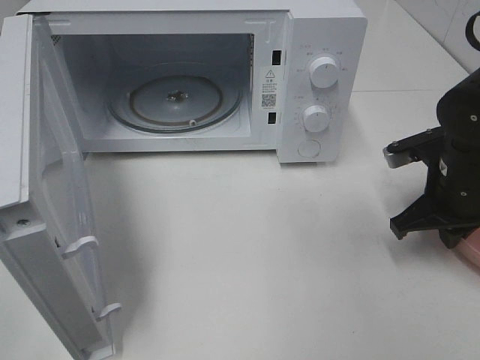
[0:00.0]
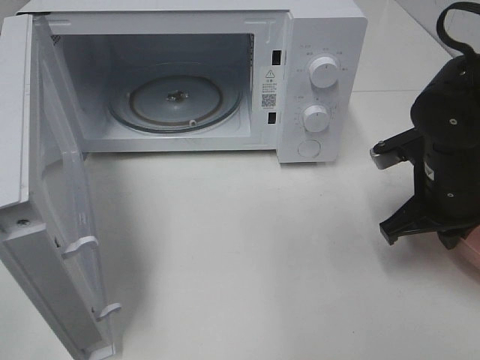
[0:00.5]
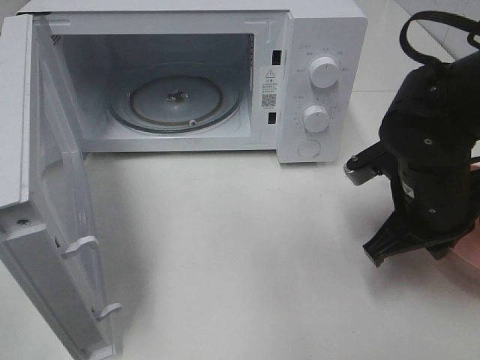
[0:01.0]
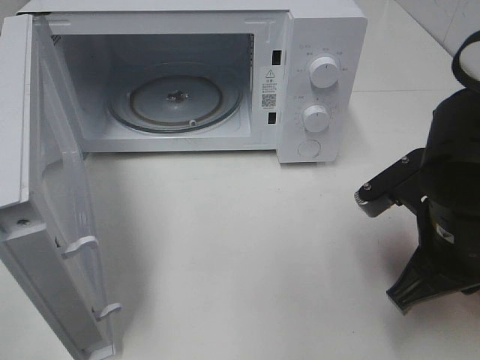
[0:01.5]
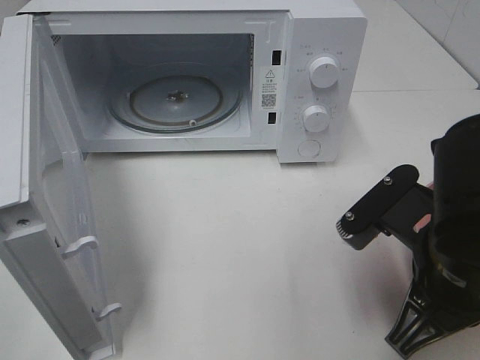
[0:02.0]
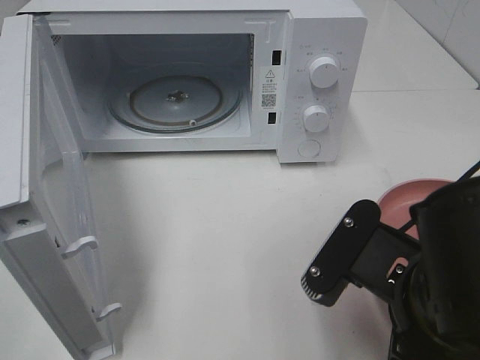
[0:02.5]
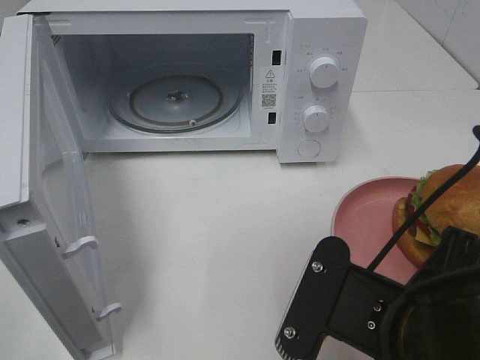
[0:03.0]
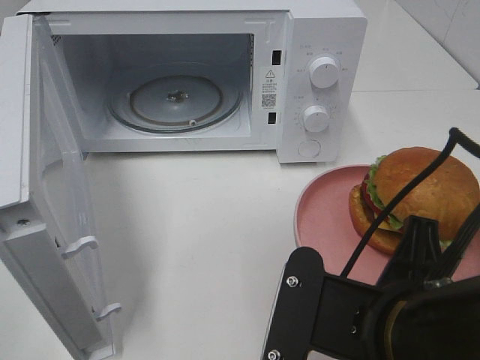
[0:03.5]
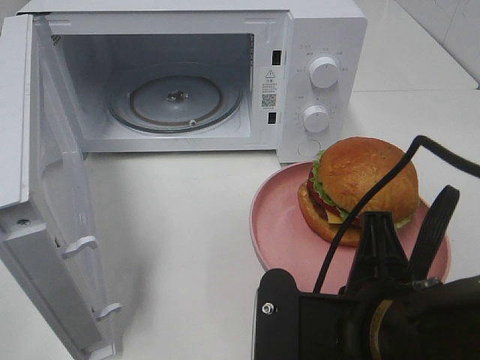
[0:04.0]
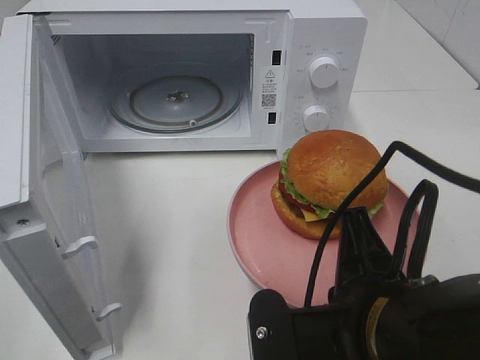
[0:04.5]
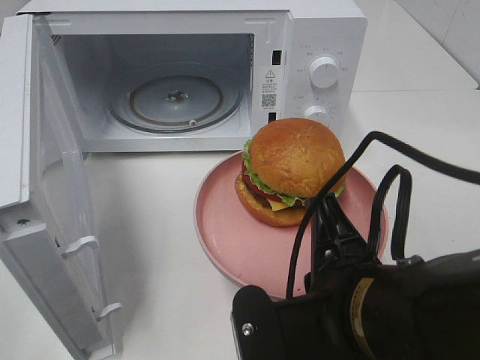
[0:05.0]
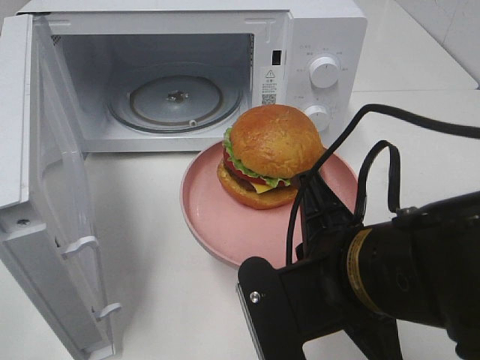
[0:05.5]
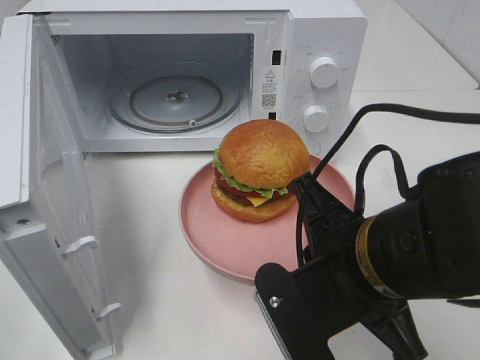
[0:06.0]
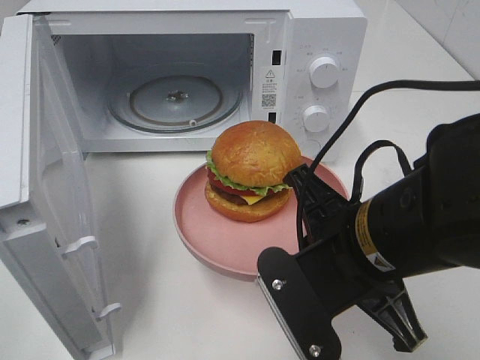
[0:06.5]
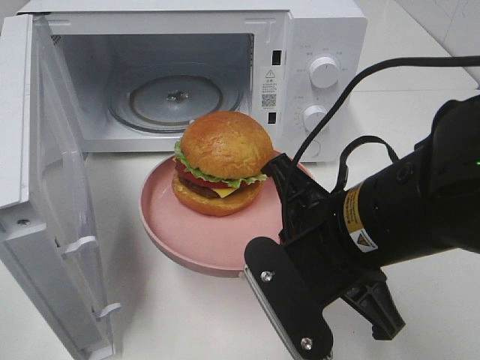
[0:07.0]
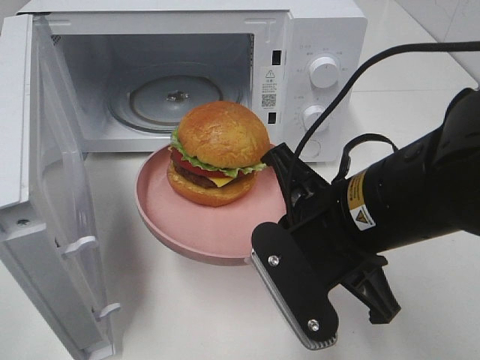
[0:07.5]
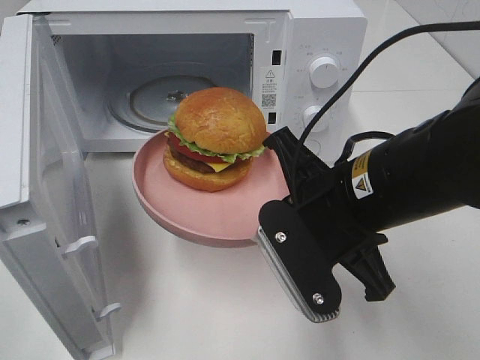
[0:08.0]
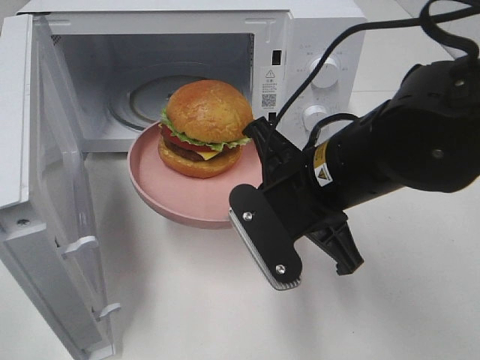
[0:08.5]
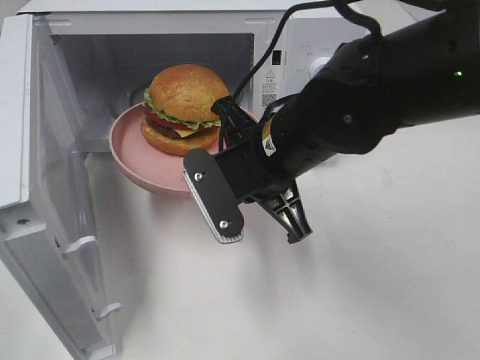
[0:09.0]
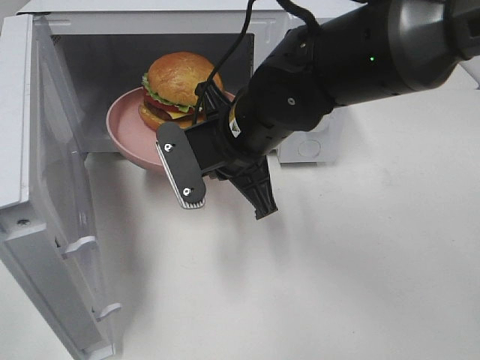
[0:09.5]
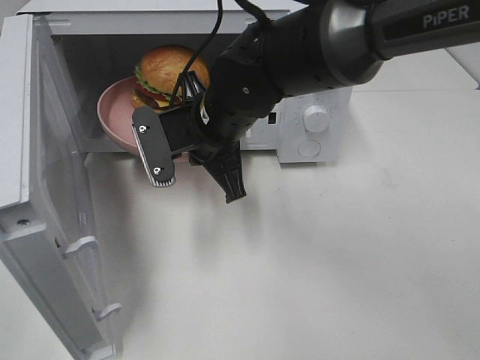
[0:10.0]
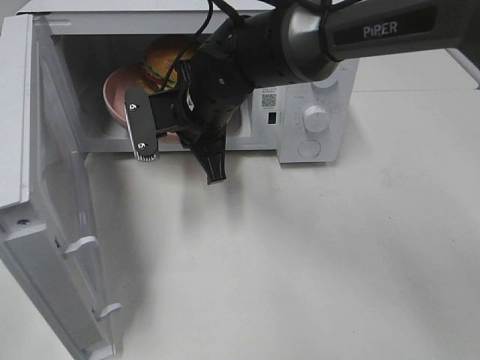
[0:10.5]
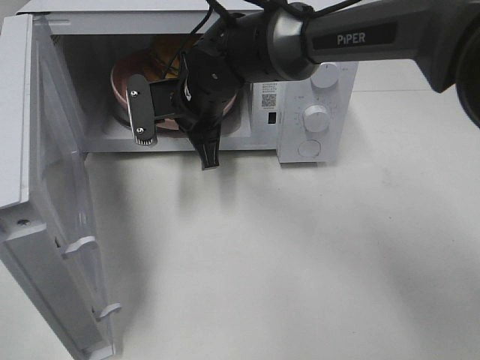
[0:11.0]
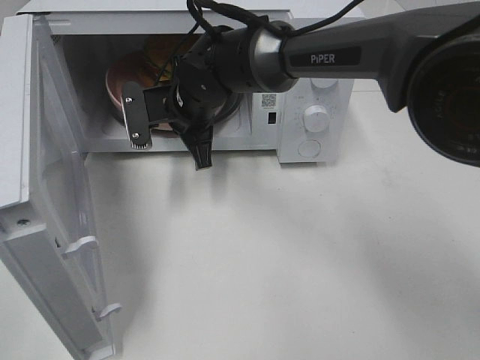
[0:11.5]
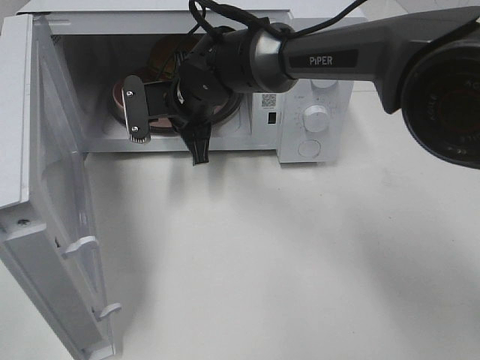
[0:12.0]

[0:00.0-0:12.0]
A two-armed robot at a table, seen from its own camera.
Task of the whole recording: Heat the burger.
0:00.0 to 0:02.0: The right gripper goes some 15 cm backward and to the left.
0:02.0 to 0:04.0: The right gripper goes roughly 10 cm to the left and backward.
0:04.0 to 0:06.0: The right gripper travels forward by roughly 5 cm.
0:06.0 to 0:08.0: The right gripper moves forward, approximately 5 cm.
0:08.0 to 0:10.0: The right gripper heads forward and to the left, covering about 15 cm.
0:10.0 to 0:12.0: The right gripper travels forward by roughly 10 cm.

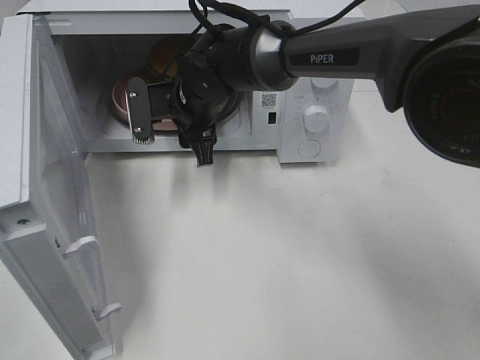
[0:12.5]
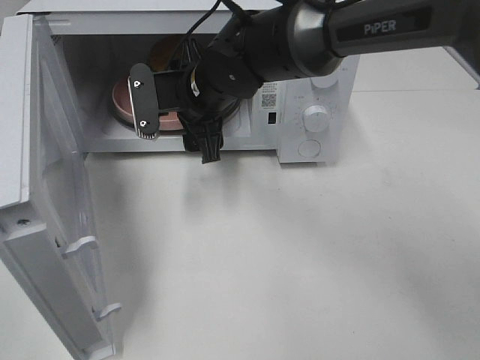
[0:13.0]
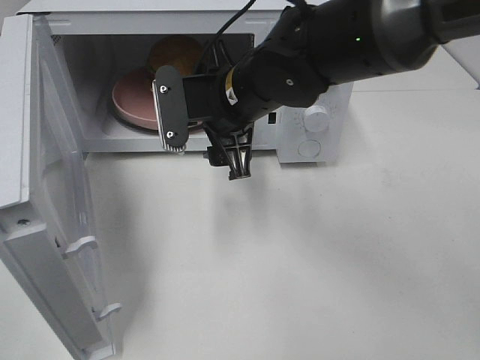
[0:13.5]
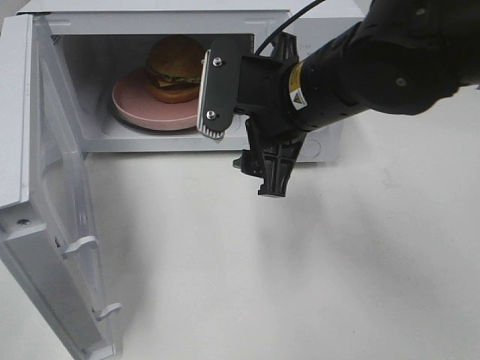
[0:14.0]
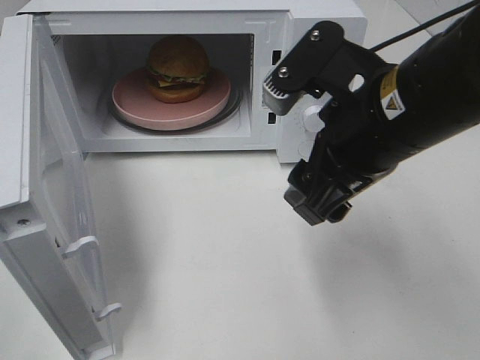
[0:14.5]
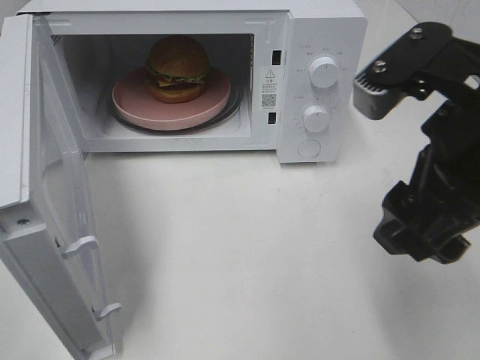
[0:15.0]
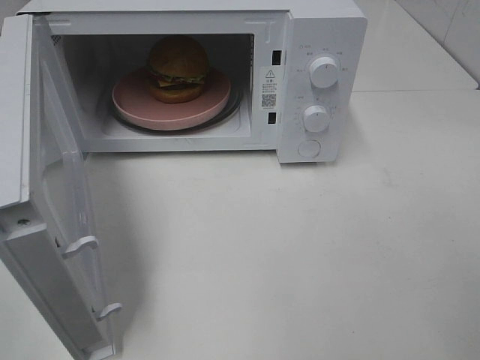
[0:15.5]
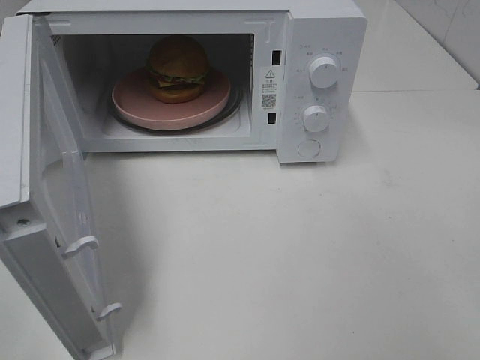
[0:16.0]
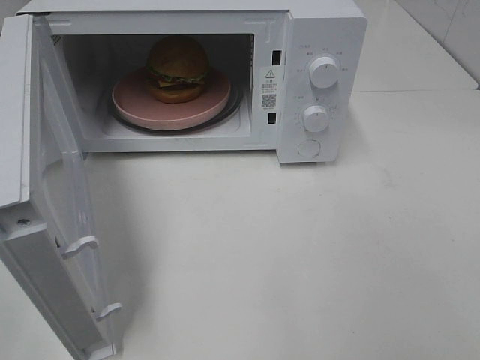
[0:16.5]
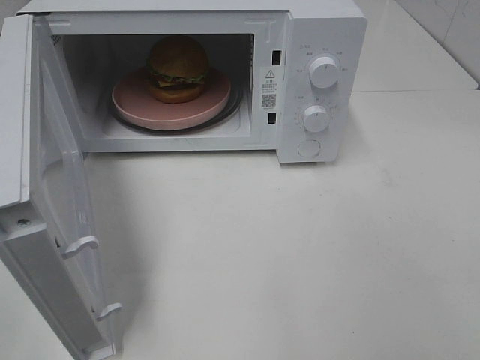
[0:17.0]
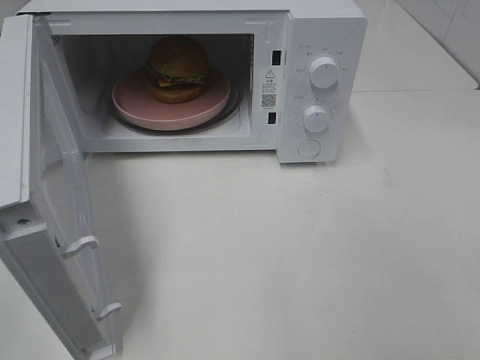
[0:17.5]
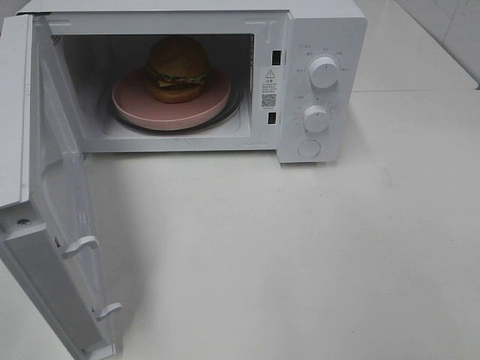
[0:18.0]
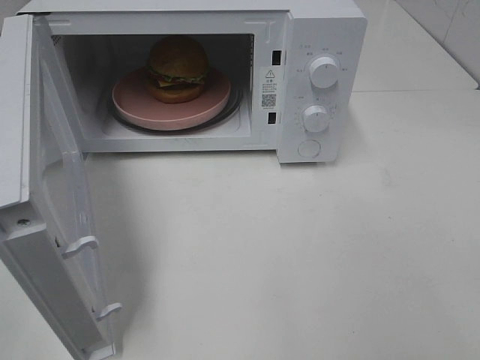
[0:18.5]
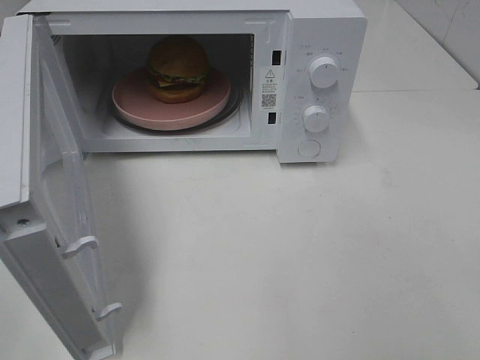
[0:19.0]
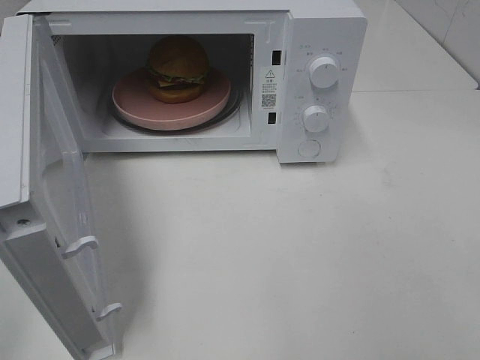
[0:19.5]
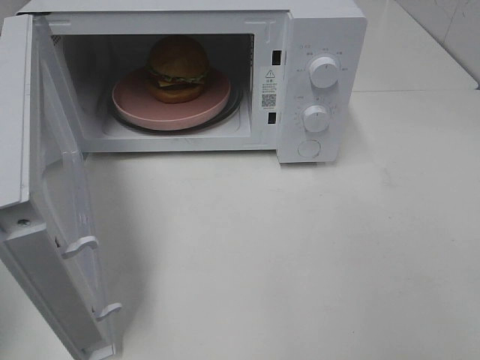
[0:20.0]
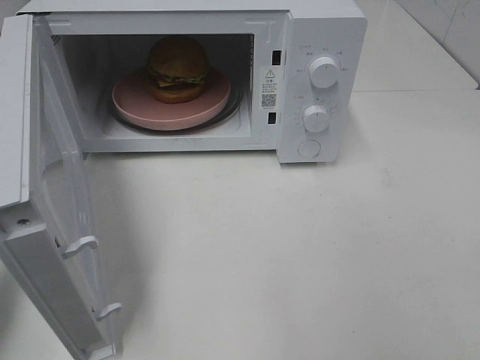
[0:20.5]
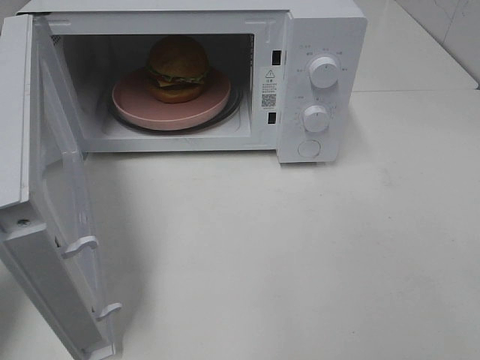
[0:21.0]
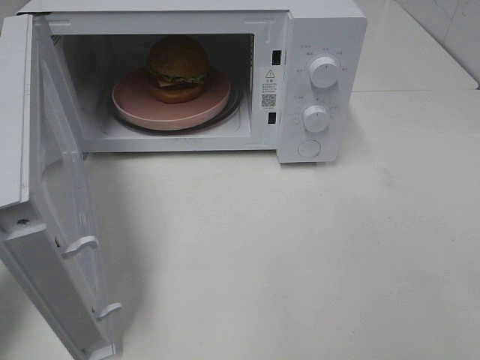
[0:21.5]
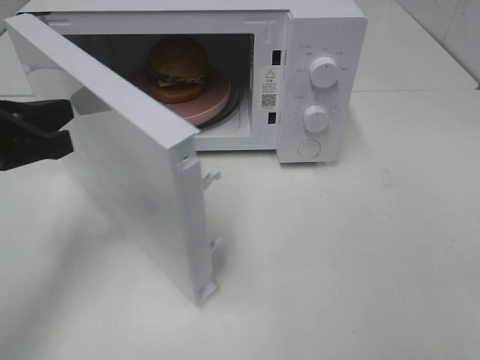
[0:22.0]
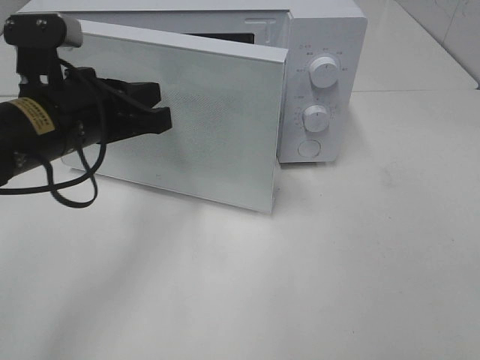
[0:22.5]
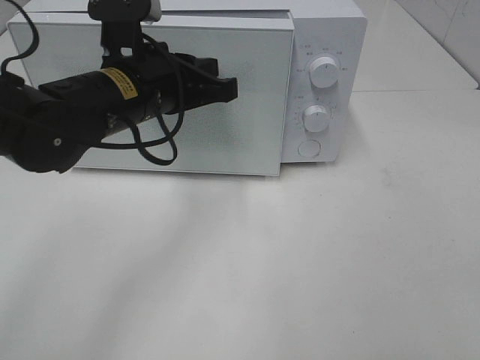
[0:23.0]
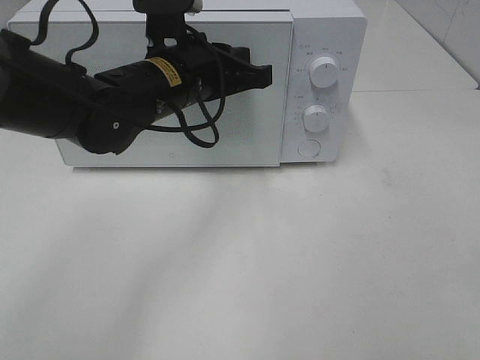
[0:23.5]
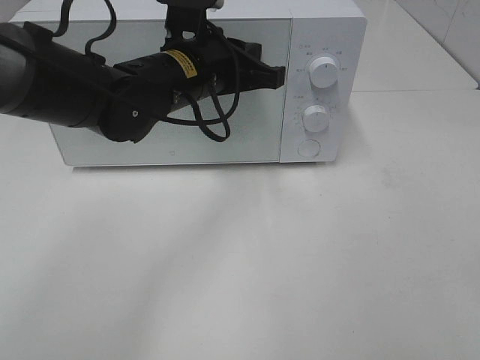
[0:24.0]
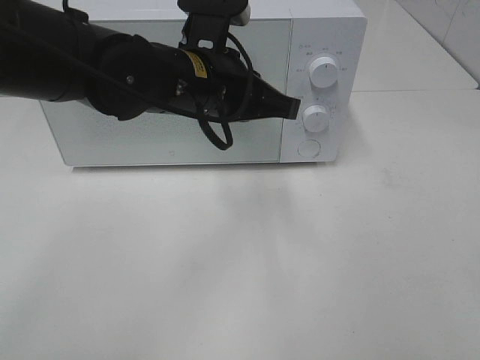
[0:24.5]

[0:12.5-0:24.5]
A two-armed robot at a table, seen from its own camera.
Task of the whole recording: Heat the burger.
Step, 0:12.5 to 0:24.0: Left hand: close the microwave door.
0:12.5 to 0:14.5: The right gripper goes some 30 cm backward, to the right and upward.
0:14.5 to 0:16.5: The right gripper is displaced backward and to the right by roughly 30 cm.
0:16.5 to 0:18.5: Neither gripper changes place.
0:18.5 to 0:20.5: The left gripper is displaced forward by roughly 15 cm, and closes.
0:20.5 to 0:22.5: The left gripper is displaced to the right and forward by roughly 20 cm.
0:22.5 to 0:24.5: The left gripper moves to the right, roughly 10 cm.

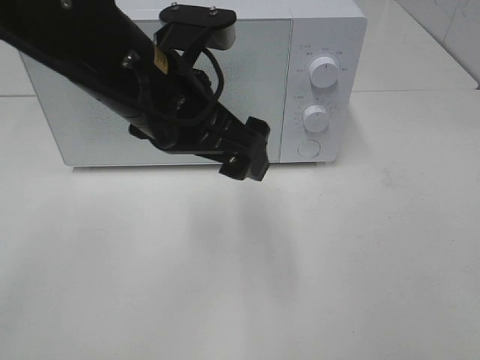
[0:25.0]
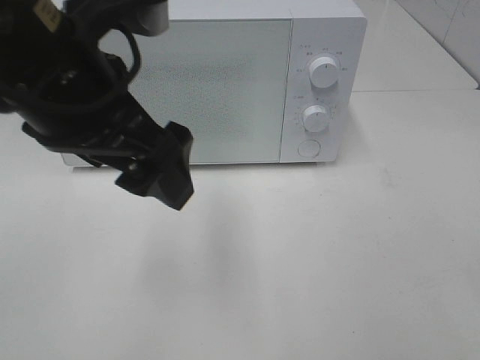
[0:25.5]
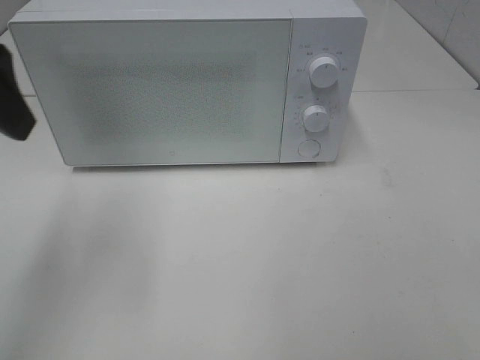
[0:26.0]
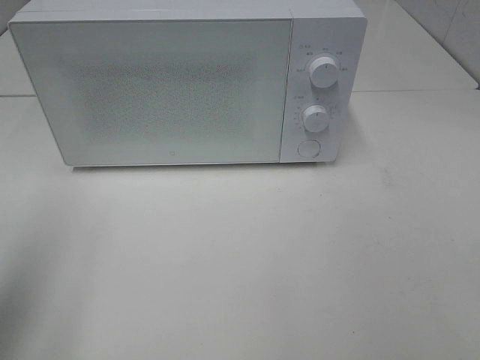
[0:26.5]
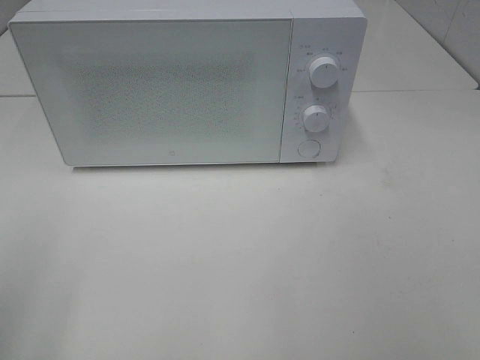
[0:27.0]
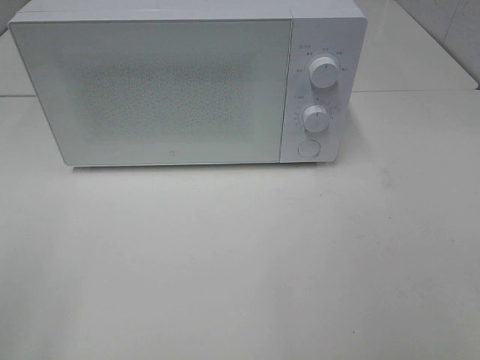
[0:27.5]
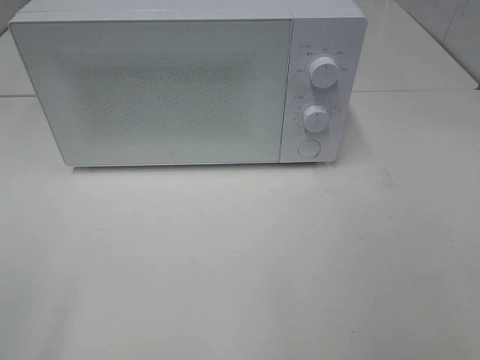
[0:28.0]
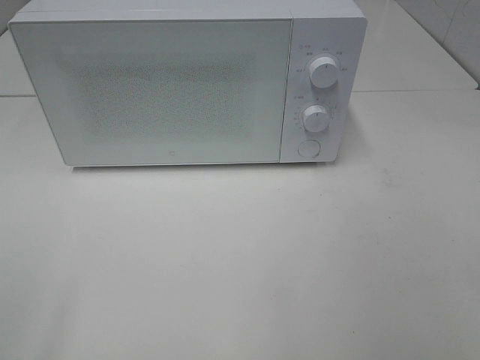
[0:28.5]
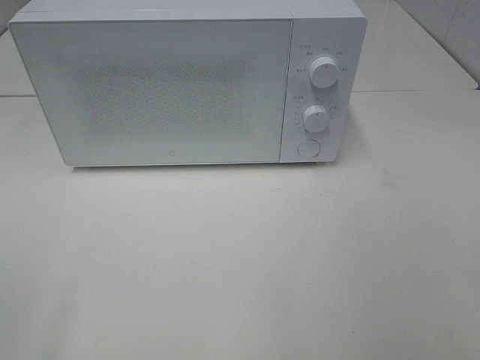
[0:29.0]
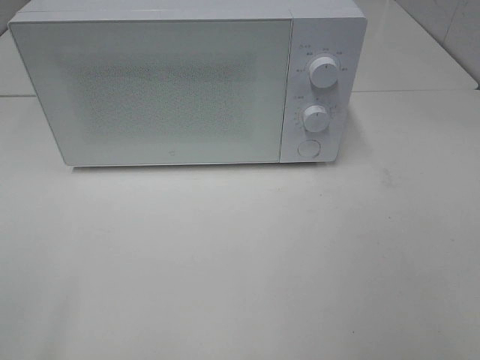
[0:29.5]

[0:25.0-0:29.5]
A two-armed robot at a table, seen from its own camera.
Task of the whole recording: Heat the burger.
0:25.0 to 0:27.0: The left gripper shifts some 30 cm to the left and backward.
